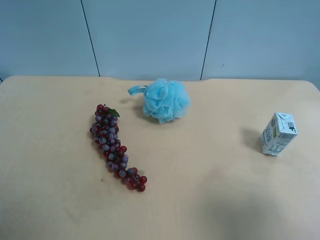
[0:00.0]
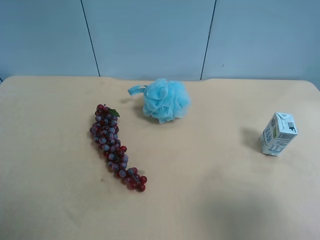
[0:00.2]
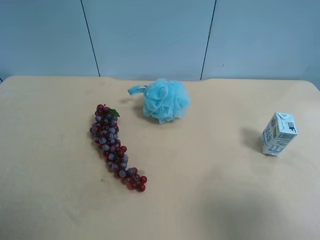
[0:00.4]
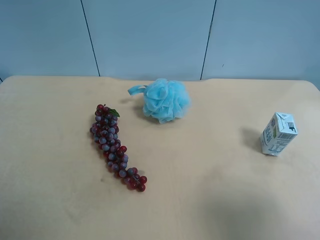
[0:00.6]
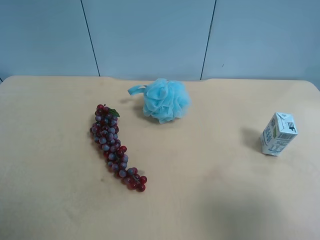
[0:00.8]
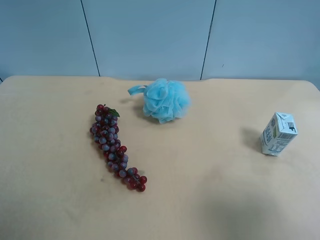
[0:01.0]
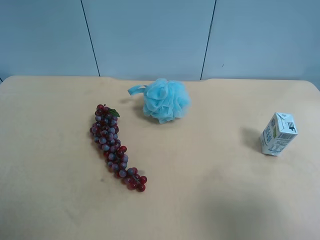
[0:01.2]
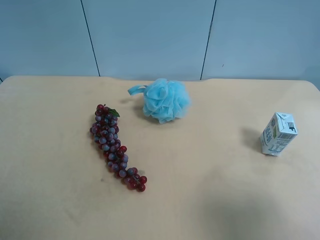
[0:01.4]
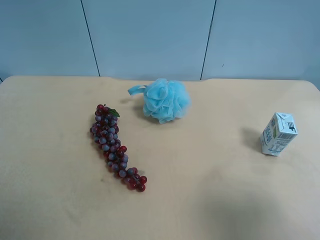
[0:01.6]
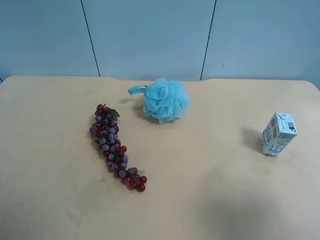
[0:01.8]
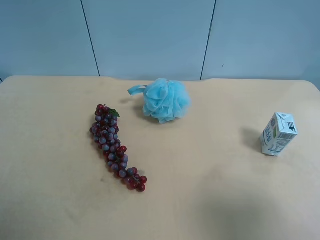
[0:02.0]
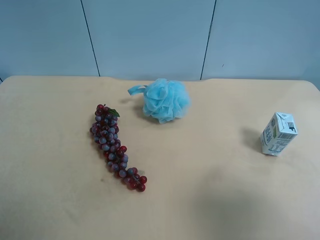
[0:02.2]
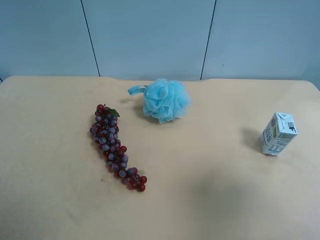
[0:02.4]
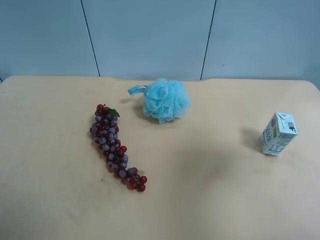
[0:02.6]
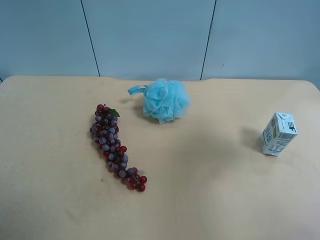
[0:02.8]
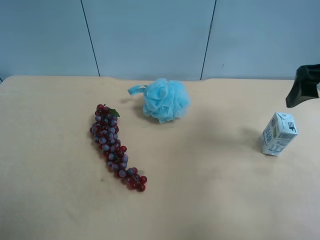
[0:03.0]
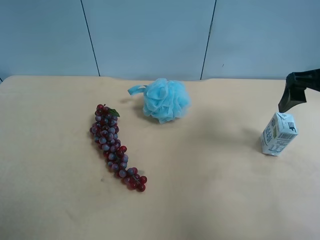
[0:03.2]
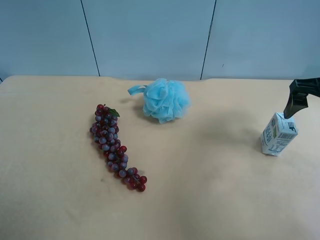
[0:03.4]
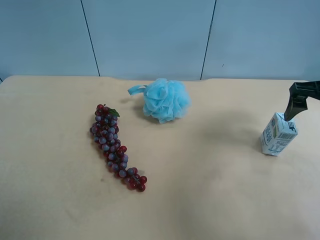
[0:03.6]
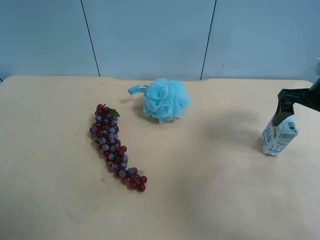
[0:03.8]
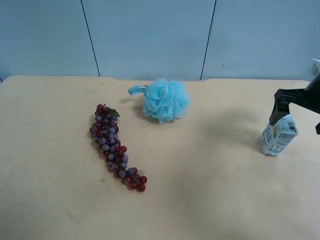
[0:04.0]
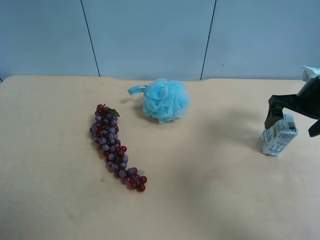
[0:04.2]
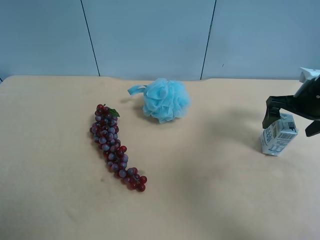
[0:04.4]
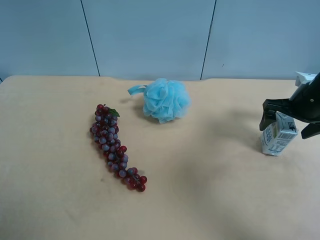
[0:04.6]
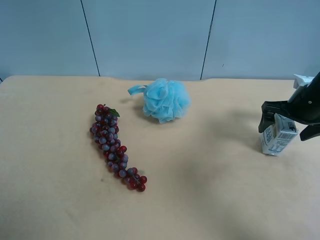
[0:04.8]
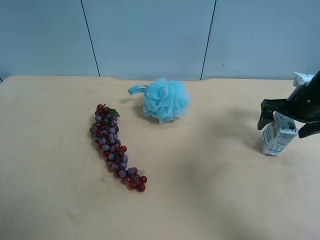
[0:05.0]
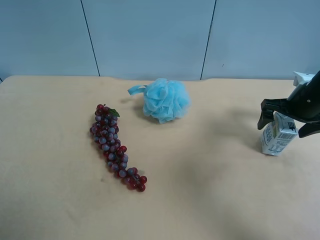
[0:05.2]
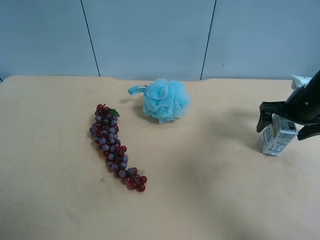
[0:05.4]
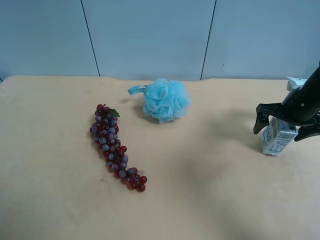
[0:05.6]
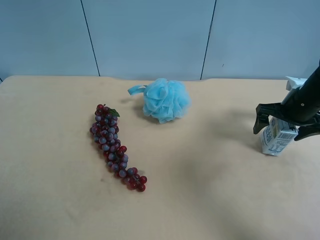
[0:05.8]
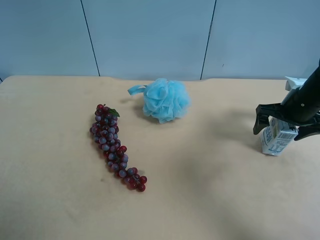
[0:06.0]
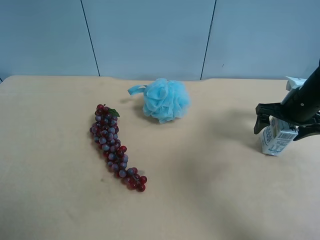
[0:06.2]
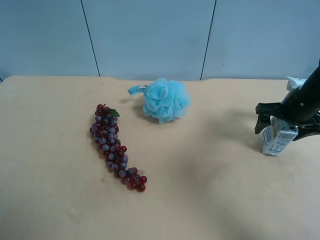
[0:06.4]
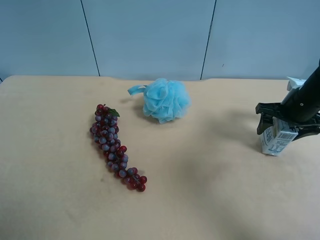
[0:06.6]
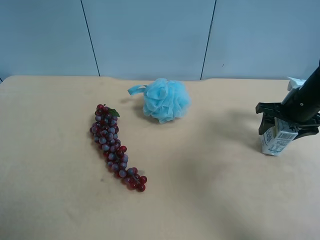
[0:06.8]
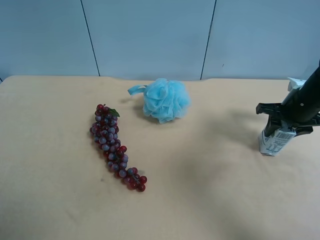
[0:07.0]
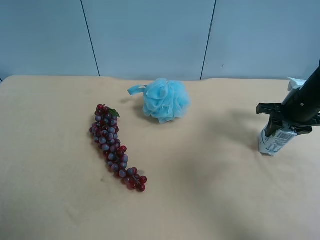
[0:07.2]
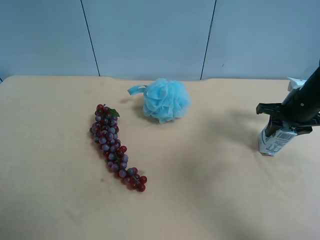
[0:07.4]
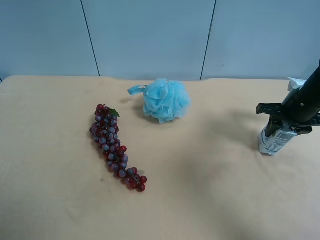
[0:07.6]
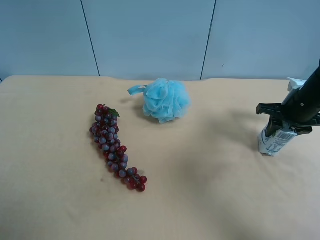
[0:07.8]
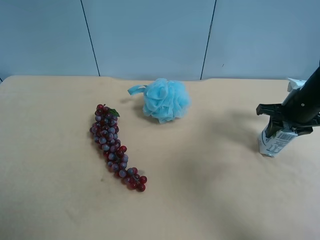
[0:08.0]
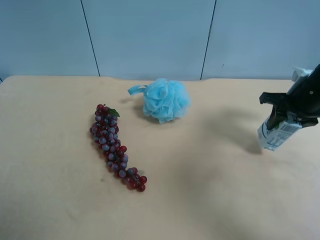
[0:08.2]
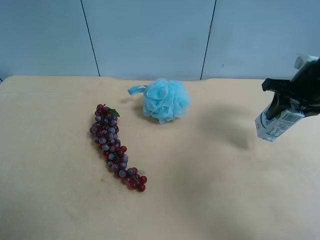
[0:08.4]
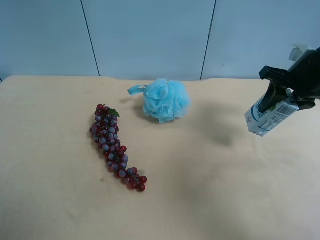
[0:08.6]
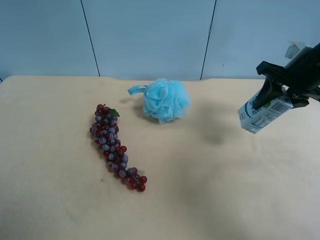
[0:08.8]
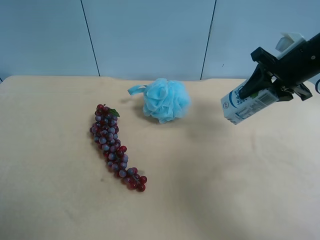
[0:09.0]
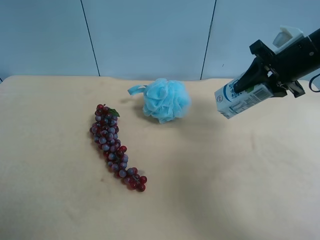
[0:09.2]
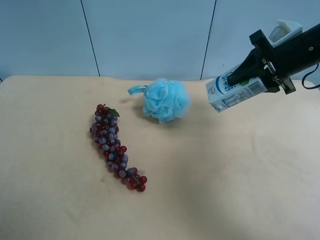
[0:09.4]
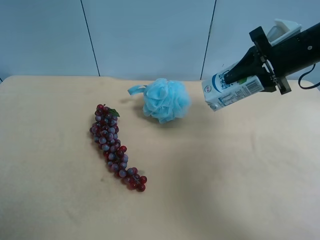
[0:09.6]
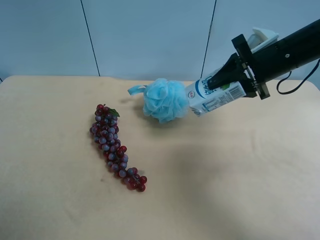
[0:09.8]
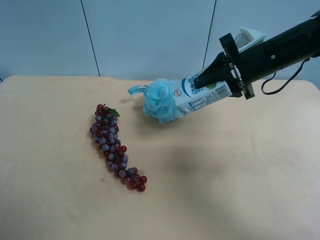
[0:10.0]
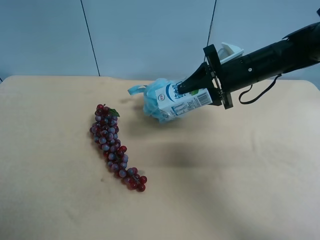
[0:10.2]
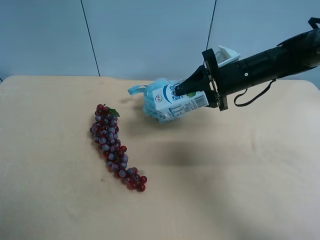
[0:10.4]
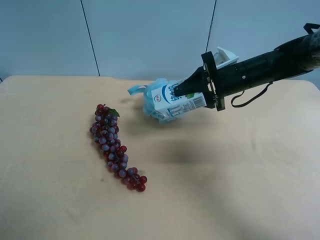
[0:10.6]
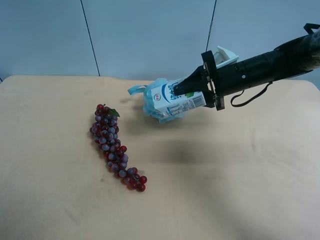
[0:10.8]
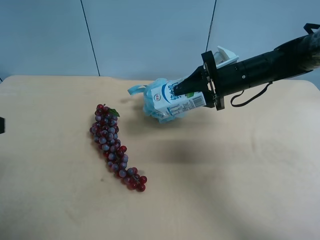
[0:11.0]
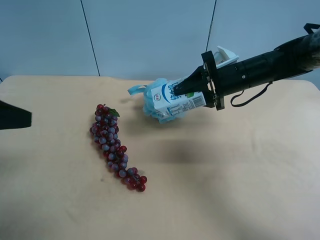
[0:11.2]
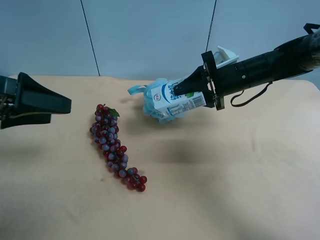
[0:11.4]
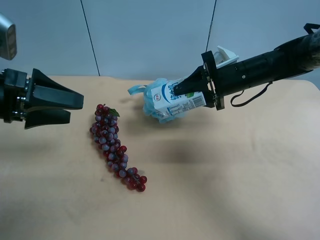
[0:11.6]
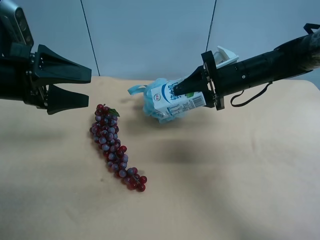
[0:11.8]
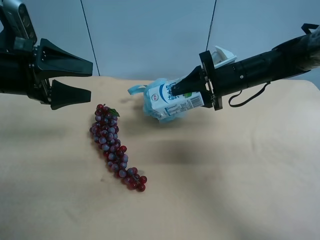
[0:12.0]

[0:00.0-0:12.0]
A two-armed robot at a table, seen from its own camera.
Task of the whole recording: use the right gripper to pick up the item and transfer it from the right gripper to the left gripper.
0:00.0 to 0:01.6: The two grippers keep their place.
0:01.6 to 0:03.0: The right gripper moves forward, approximately 25 cm.
0:03.0 to 0:04.4: The right gripper goes approximately 15 cm downward and forward.
0:04.4 to 0:06.0: The grippers move only a little.
0:06.0 to 0:07.6: The right gripper closes.
0:07.6 to 0:09.0: The right gripper goes about 10 cm upward.
0:09.0 to 0:10.4: The right gripper moves to the left and downward, some 10 cm.
0:10.4 to 0:12.0: The left gripper heads forward, covering about 25 cm.

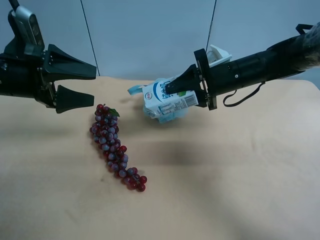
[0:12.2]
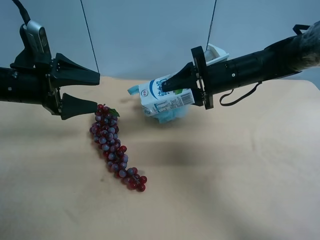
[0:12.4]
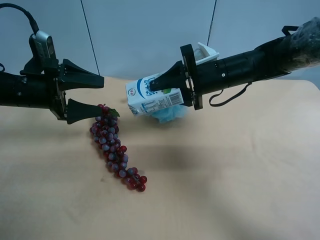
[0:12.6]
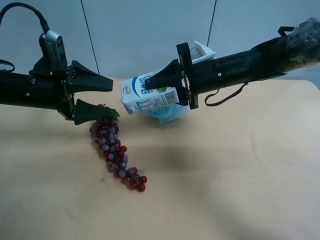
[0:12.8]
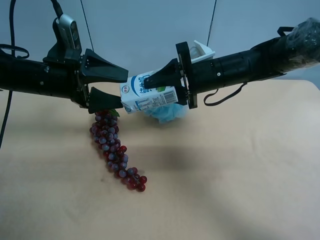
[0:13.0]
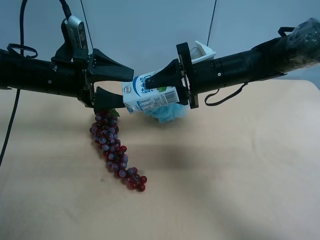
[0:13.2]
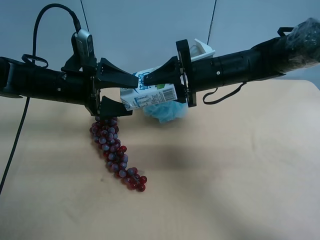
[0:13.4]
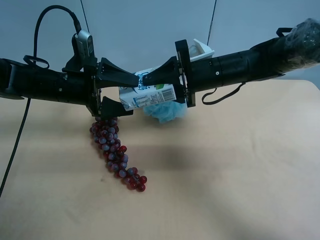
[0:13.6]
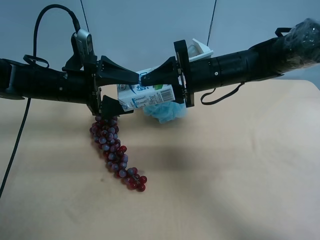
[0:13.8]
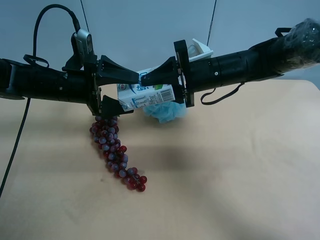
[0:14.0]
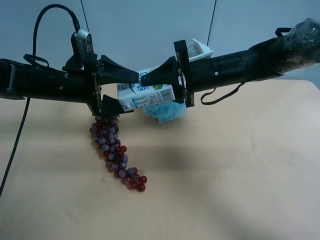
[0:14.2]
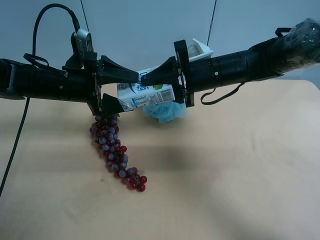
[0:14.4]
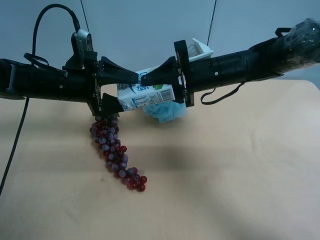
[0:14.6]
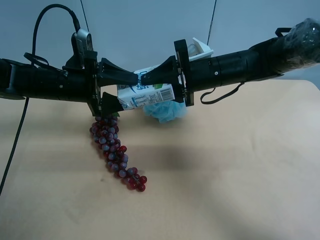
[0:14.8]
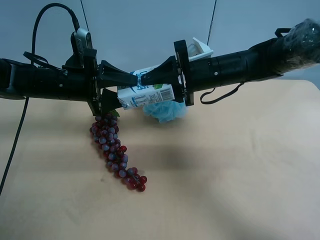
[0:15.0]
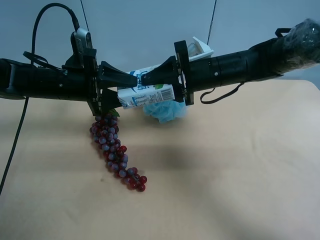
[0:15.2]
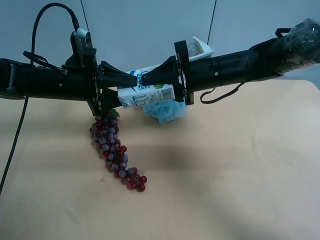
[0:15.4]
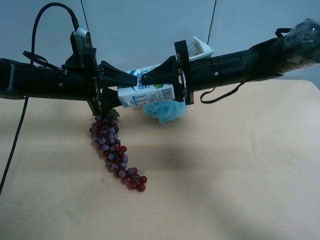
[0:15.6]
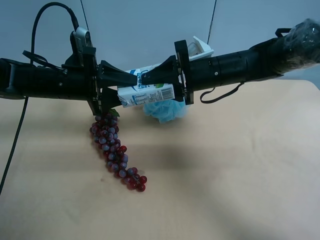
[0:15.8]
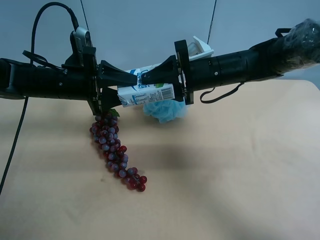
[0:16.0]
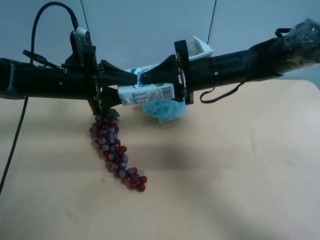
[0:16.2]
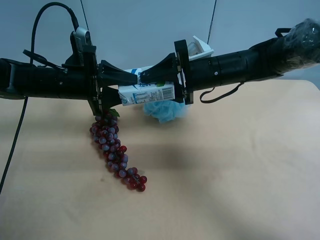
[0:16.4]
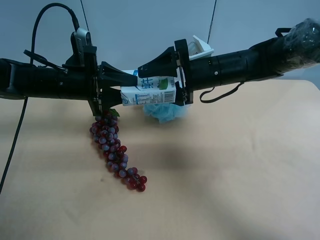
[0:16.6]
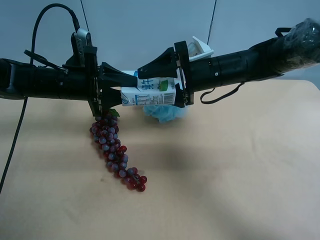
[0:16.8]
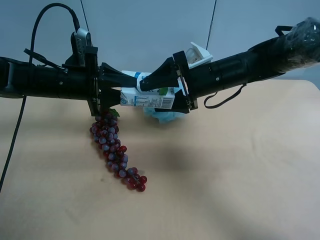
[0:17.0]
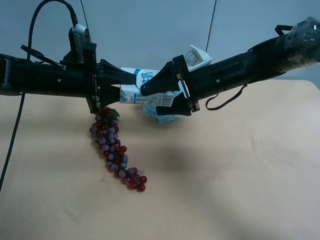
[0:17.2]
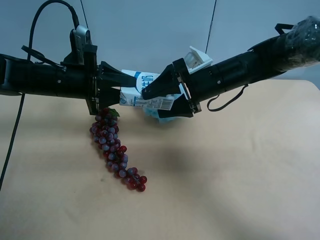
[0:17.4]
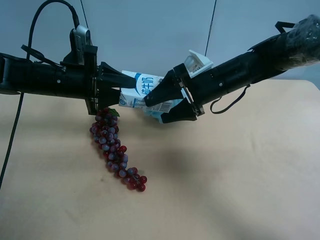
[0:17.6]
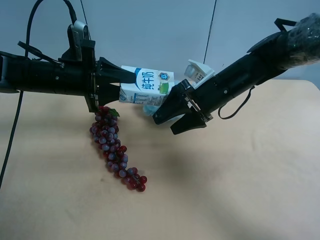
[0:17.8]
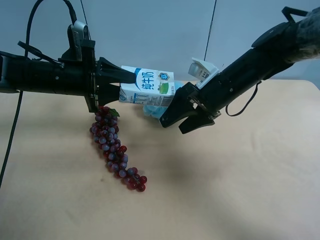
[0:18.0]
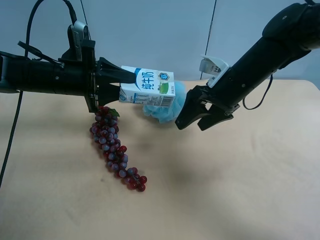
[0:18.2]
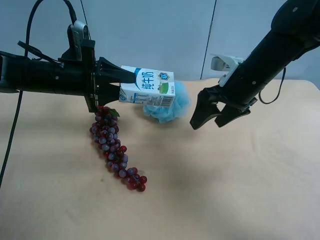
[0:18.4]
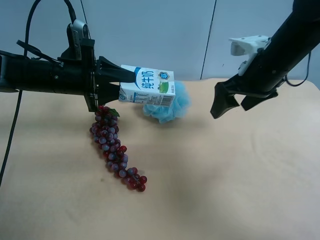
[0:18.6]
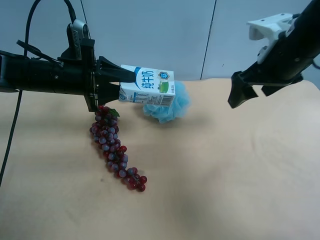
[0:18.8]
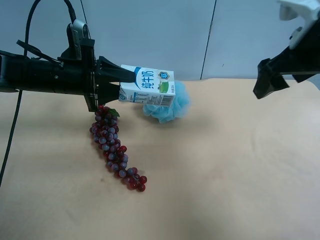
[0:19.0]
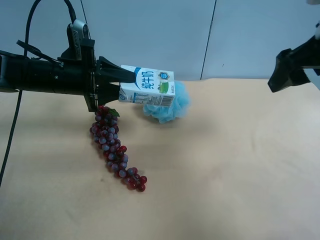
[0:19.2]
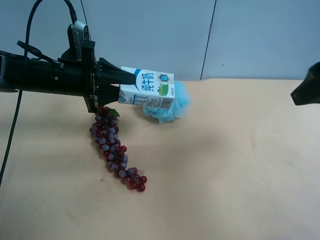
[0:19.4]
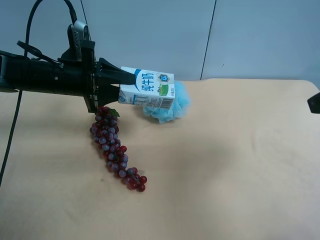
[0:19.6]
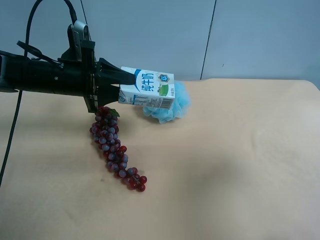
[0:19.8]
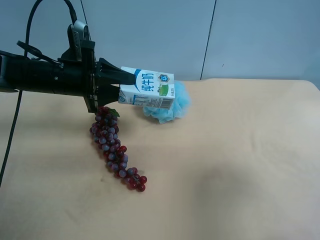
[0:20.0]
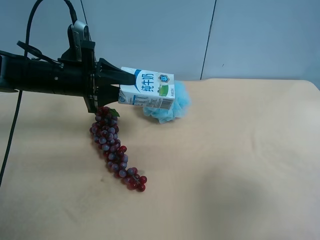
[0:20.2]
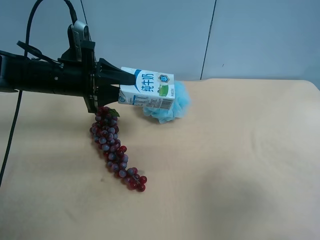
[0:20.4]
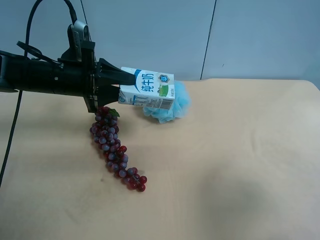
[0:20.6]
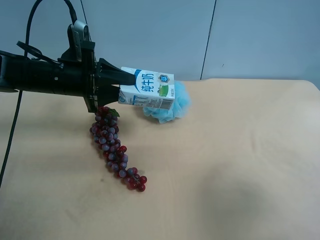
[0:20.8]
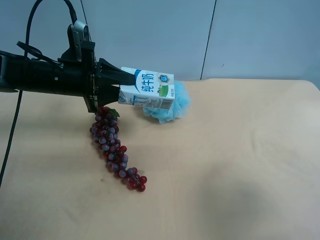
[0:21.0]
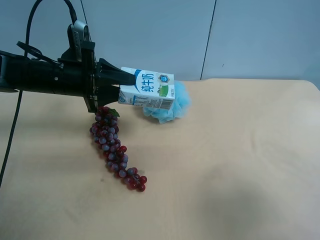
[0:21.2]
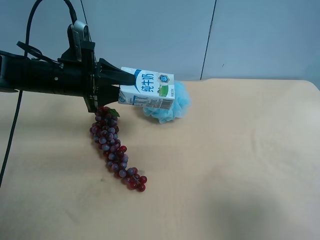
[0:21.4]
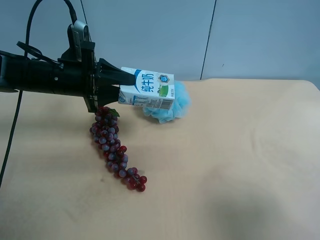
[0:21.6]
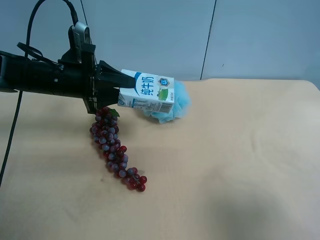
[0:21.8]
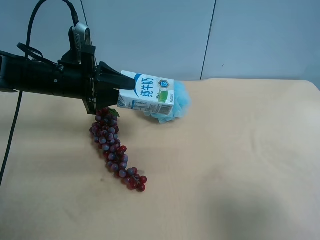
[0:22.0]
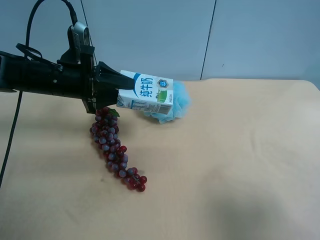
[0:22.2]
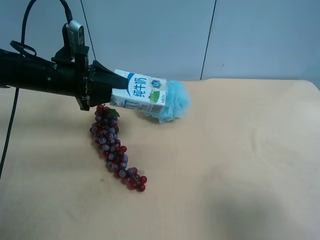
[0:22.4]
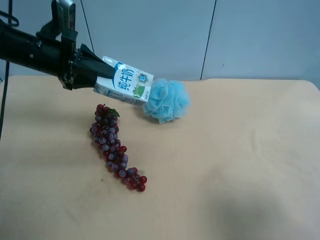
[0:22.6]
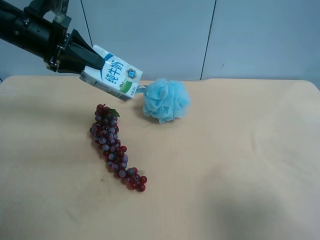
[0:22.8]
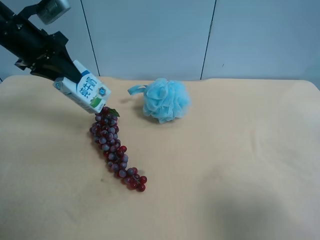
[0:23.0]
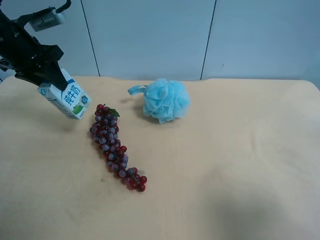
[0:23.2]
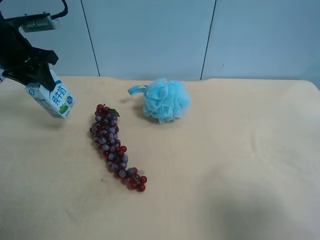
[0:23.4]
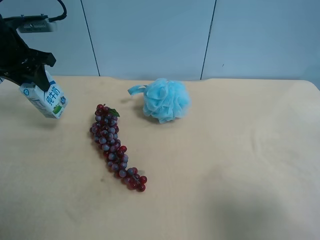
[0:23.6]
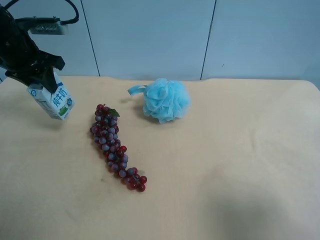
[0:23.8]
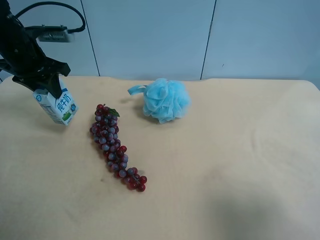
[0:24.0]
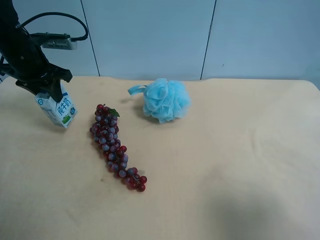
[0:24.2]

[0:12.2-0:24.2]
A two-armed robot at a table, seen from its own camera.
Task of the whole recording: use the right gripper to pick up the item and transfer it from the right gripper to the left gripper.
0:12.2 to 0:13.8: The left gripper heads to the right, covering roughly 5 cm.
0:13.8 to 0:15.2: The left gripper closes.
0:15.2 to 0:16.6: The right gripper opens.
0:16.6 to 0:18.2: The right gripper shifts by approximately 5 cm.
0:18.2 to 0:19.8: The right gripper is displaced backward, to the right and upward by some 30 cm.
0:19.8 to 0:21.2: The right gripper heads backward, covering some 5 cm.
0:21.2 to 0:22.6: The left gripper travels upward by some 5 cm.
0:22.6 to 0:24.2: The left gripper ends up about 5 cm from where it was.
